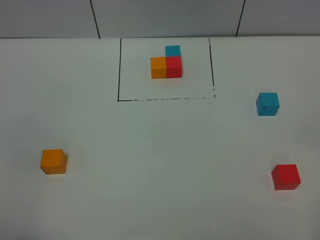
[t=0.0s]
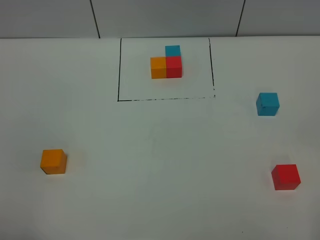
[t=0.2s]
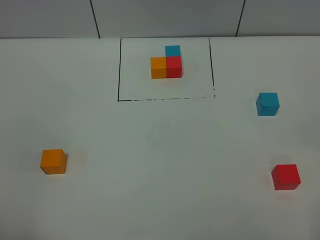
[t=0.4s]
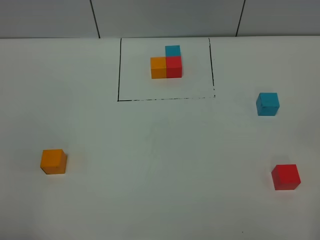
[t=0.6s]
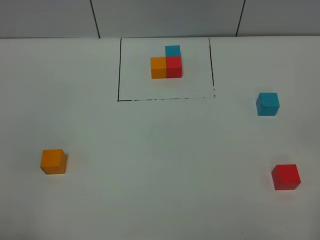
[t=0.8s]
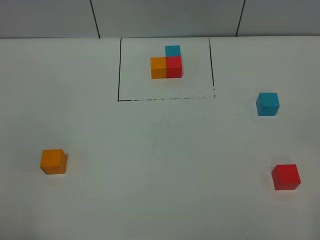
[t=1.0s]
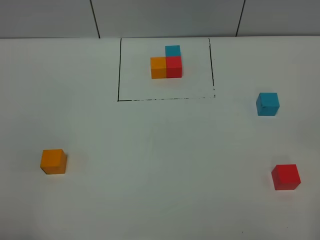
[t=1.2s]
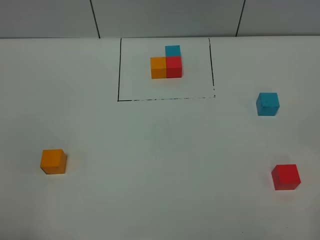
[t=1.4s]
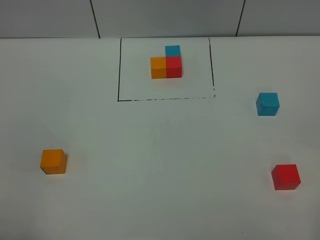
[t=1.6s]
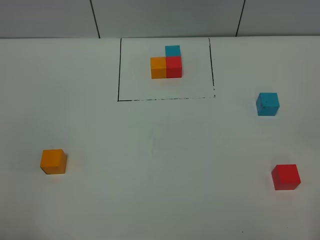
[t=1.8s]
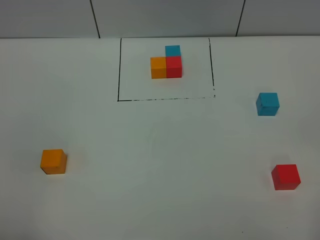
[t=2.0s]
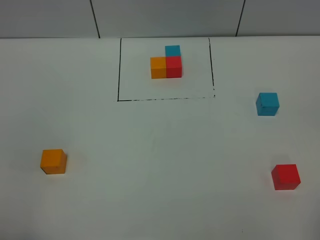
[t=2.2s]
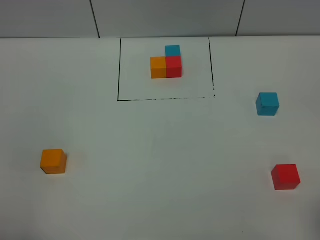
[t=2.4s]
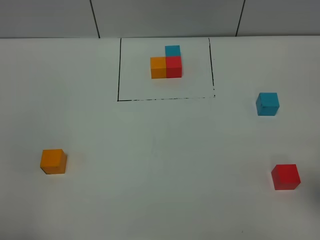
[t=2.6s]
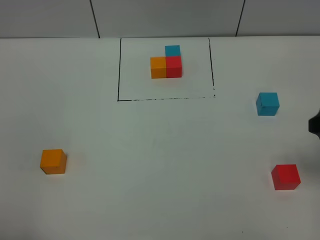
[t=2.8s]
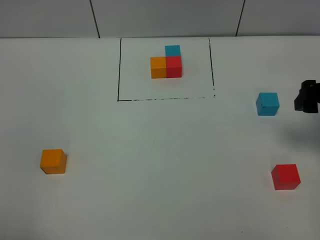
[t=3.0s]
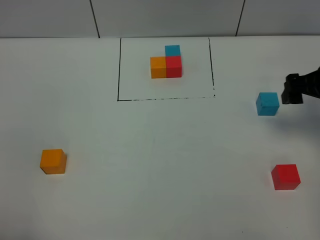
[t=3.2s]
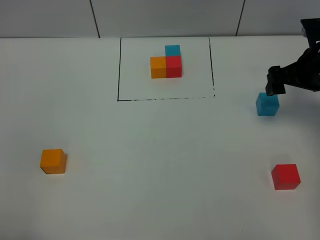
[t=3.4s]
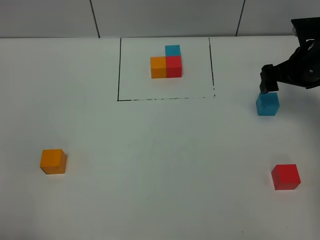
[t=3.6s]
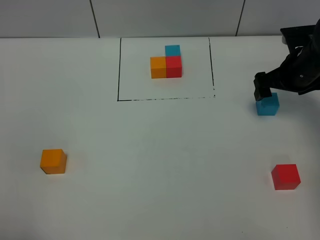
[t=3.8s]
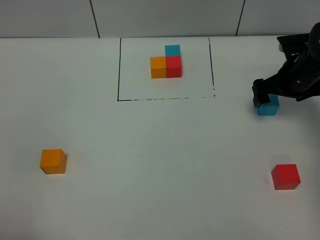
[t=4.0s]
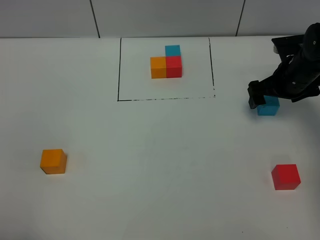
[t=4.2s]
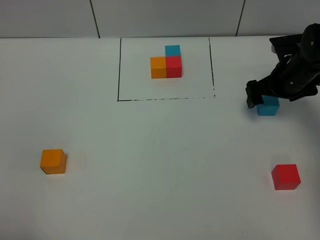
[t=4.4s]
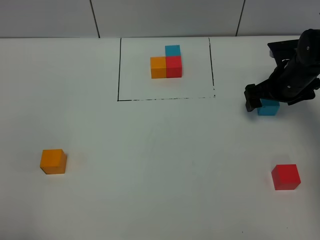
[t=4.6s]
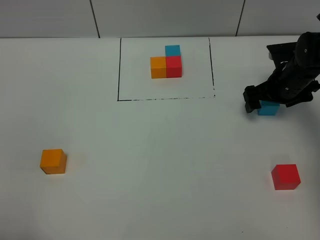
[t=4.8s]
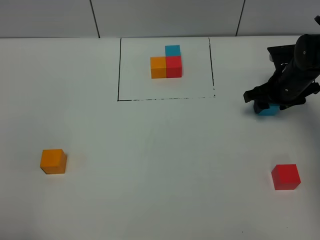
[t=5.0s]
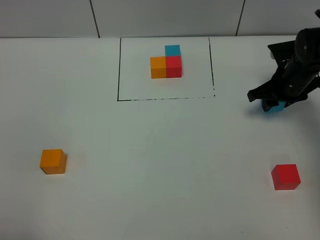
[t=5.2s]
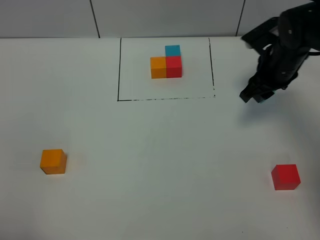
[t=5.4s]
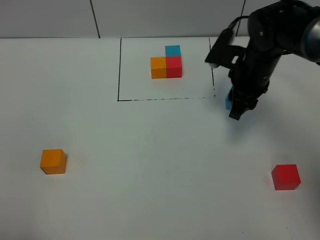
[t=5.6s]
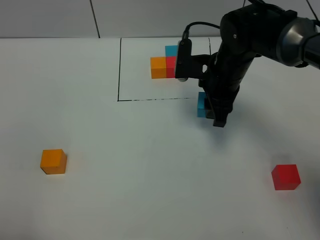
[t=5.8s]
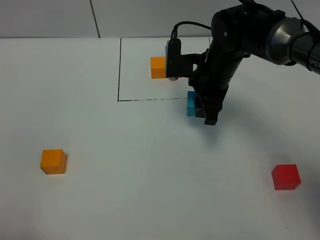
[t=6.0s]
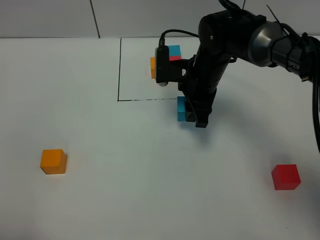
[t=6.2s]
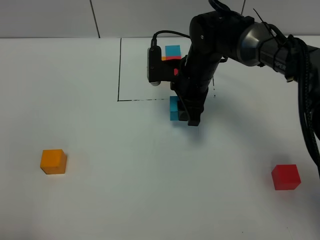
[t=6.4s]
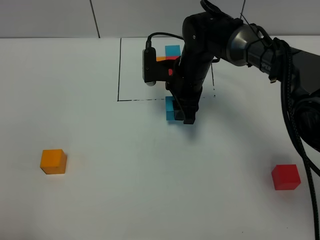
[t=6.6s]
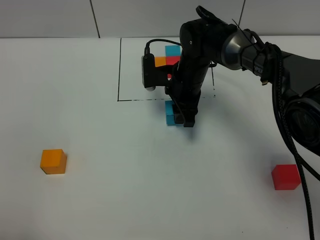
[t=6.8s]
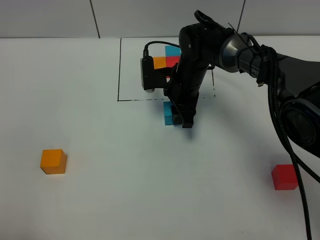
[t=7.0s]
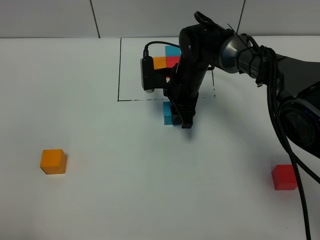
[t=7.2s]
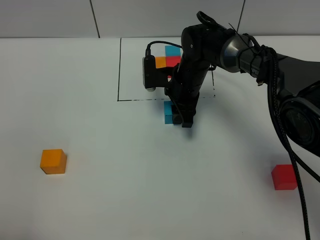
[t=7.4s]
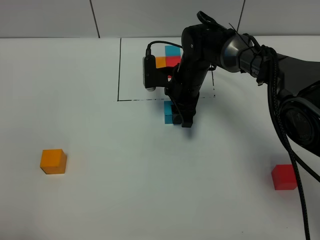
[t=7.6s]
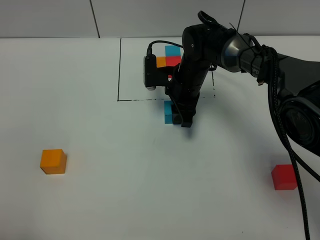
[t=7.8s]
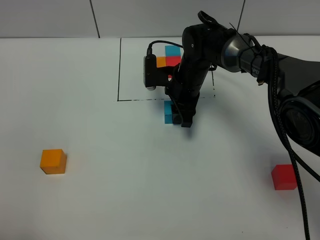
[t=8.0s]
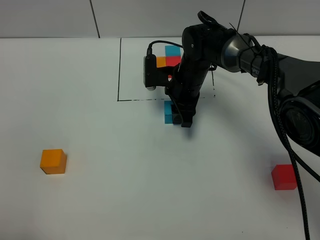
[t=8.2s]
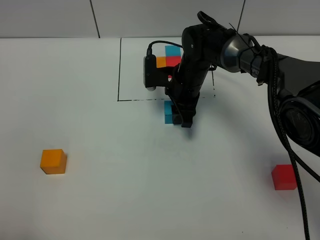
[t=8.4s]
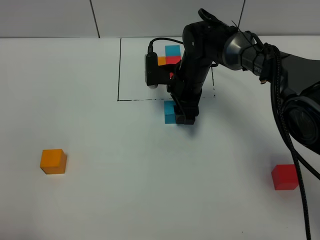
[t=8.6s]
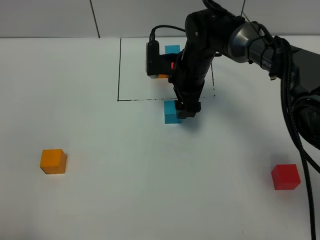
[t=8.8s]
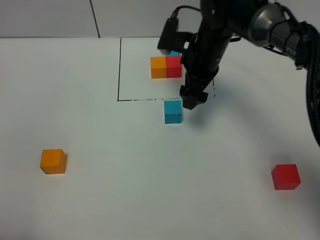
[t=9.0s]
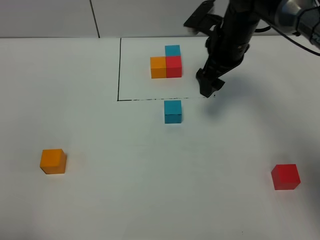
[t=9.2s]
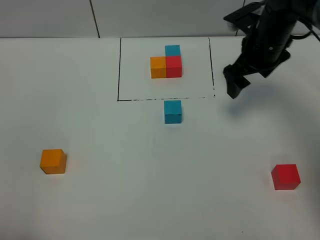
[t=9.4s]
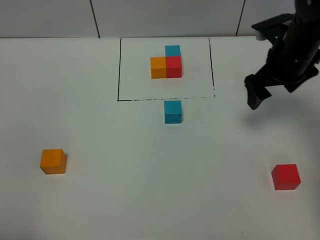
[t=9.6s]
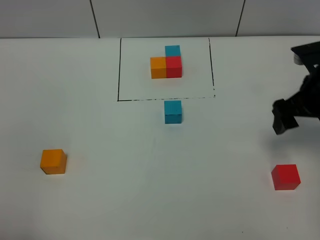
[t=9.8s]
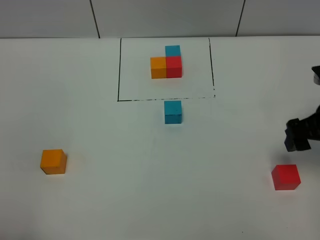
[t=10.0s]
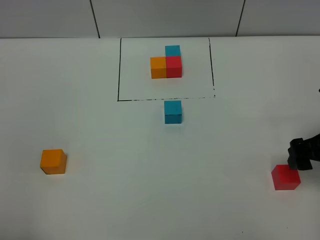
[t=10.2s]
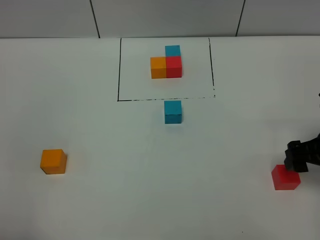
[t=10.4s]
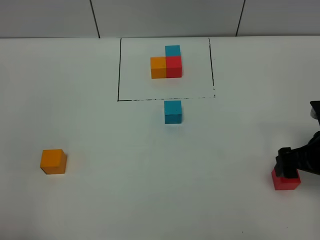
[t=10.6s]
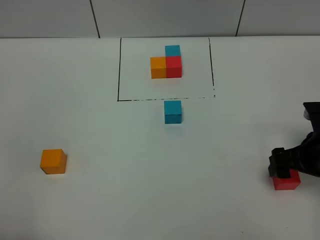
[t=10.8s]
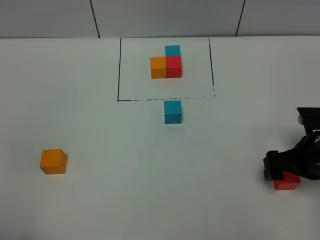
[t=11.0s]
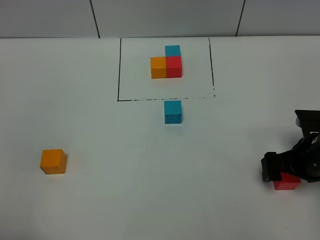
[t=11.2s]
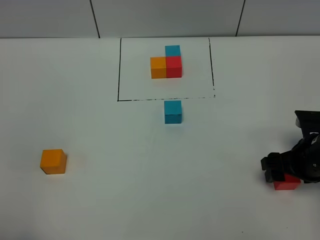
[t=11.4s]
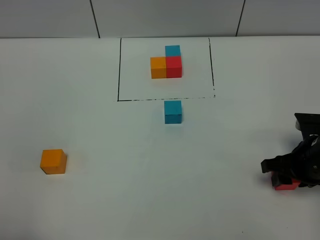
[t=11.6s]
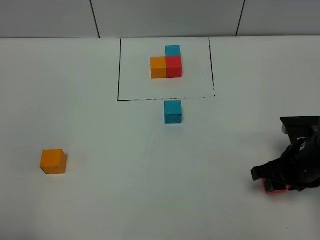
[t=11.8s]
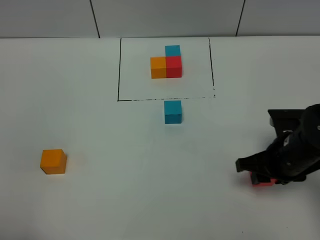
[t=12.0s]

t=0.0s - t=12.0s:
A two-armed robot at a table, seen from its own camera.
Task of the whole recording: According to the building block template in front, assemble the scattered blocks together.
Step, t=0.0s - t=8.4s: Put the blue build block in the center of the table.
t=0.0s - t=1.6s: Neither gripper changes place.
t=1.6s - t=3.0s: The right gripper moves forward, some 30 cm.
t=3.0s - t=4.4s: The right gripper shifts approximately 15 cm forward and downward.
t=4.4s - t=6.0s: The right gripper moves to the left, roughly 15 cm, and closes up.
t=6.0s - t=7.6s: The right gripper moves downward, roughly 5 cm.
t=7.6s - t=9.0s: The right gripper heads upward, covering roughly 10 cm, and opens.
t=9.0s - t=10.4s: The right gripper moves backward and to the right, roughly 25 cm.
t=10.4s - t=12.0s: The right gripper moves to the left, approximately 10 cm, and closes up.

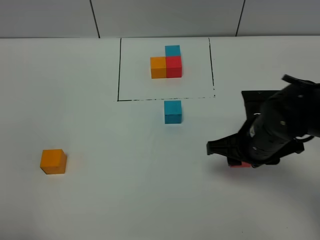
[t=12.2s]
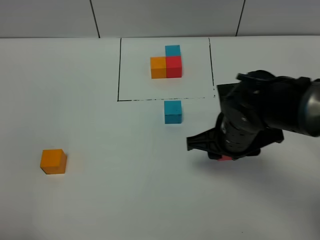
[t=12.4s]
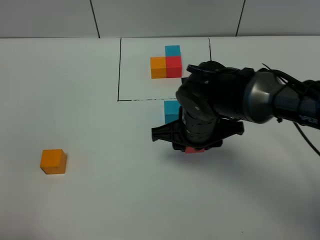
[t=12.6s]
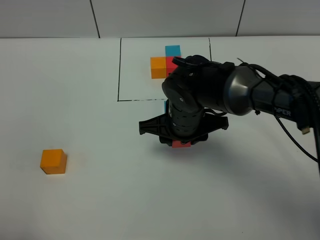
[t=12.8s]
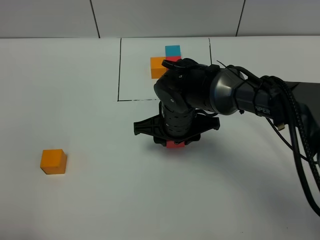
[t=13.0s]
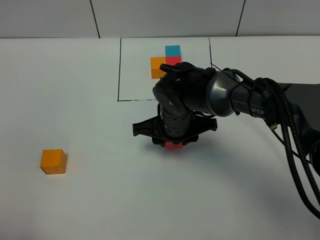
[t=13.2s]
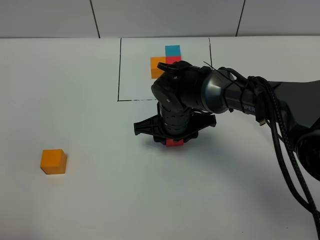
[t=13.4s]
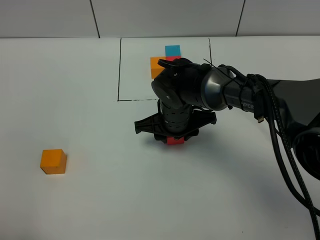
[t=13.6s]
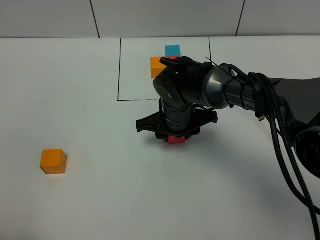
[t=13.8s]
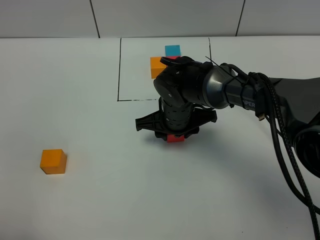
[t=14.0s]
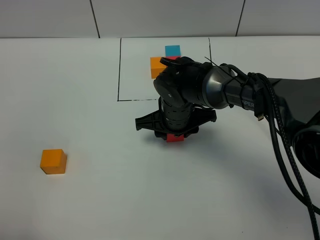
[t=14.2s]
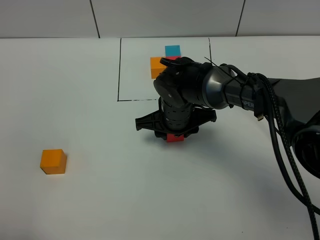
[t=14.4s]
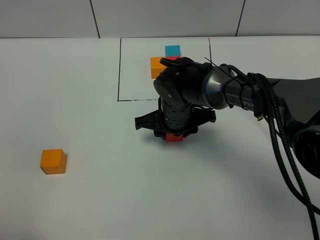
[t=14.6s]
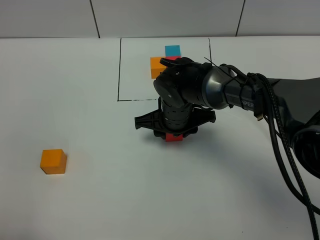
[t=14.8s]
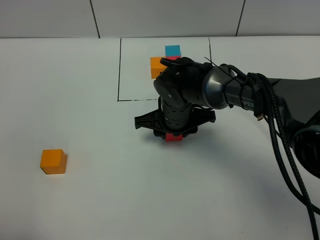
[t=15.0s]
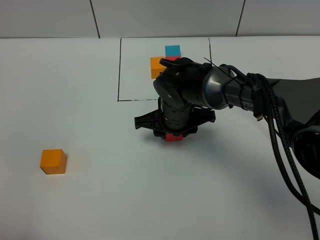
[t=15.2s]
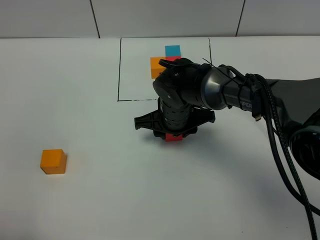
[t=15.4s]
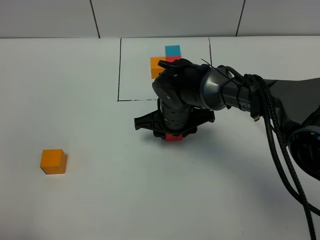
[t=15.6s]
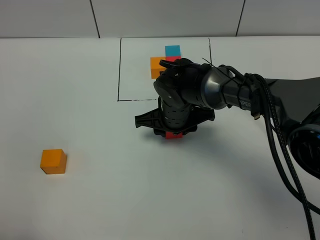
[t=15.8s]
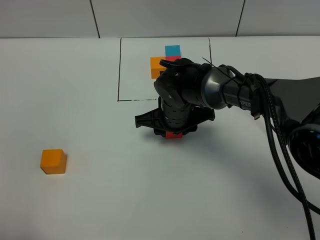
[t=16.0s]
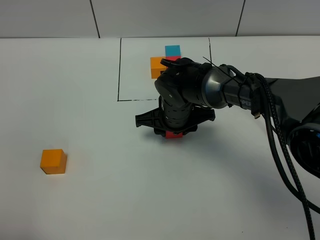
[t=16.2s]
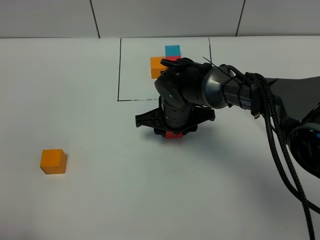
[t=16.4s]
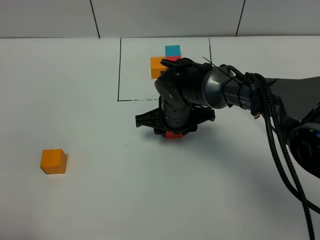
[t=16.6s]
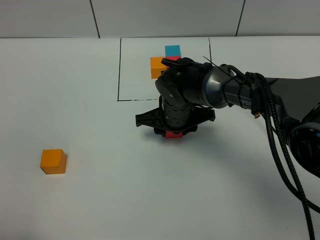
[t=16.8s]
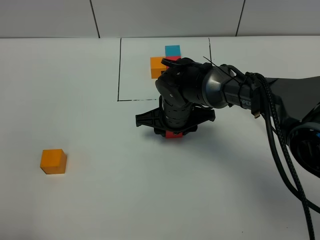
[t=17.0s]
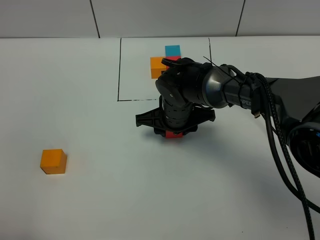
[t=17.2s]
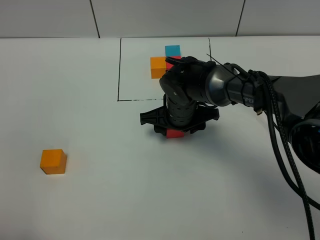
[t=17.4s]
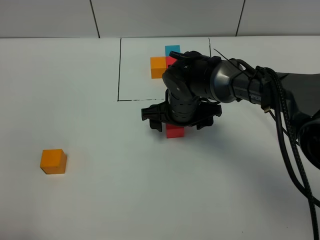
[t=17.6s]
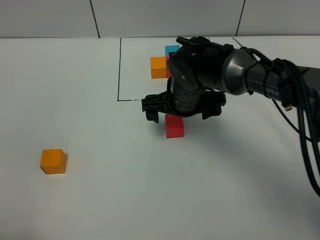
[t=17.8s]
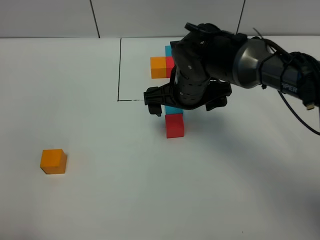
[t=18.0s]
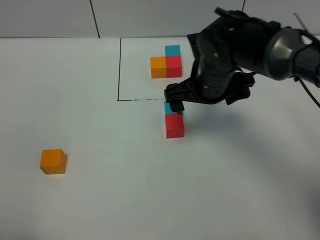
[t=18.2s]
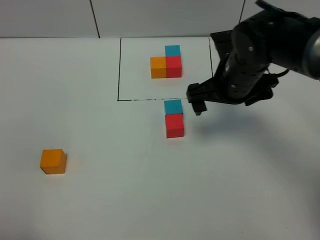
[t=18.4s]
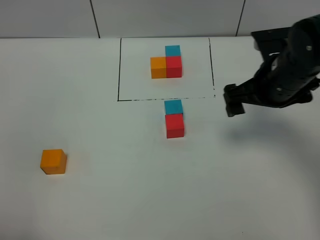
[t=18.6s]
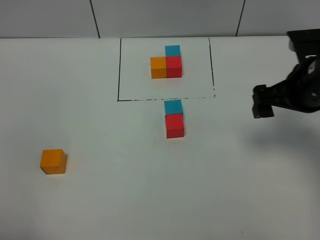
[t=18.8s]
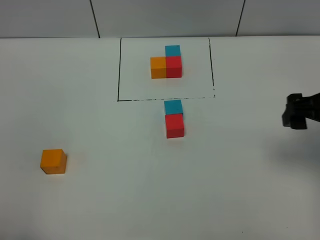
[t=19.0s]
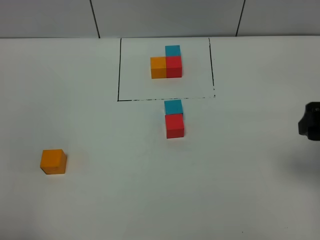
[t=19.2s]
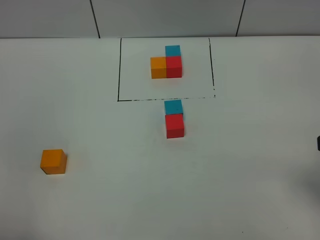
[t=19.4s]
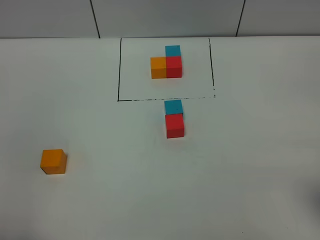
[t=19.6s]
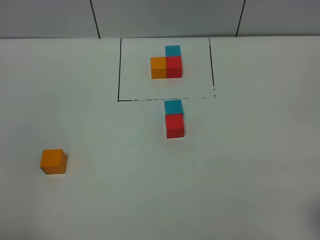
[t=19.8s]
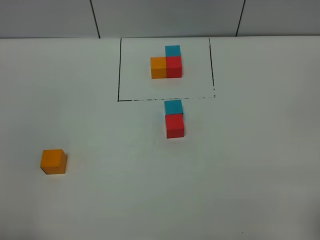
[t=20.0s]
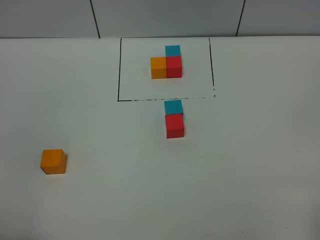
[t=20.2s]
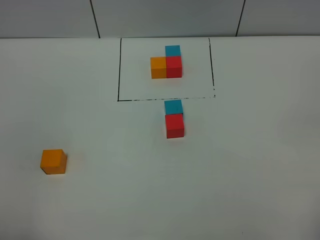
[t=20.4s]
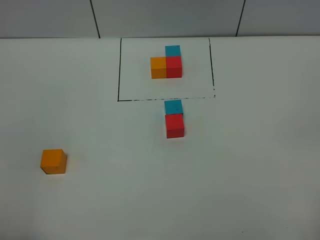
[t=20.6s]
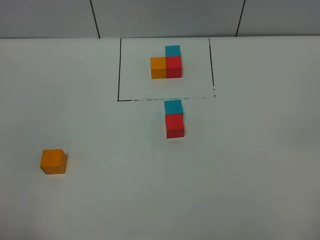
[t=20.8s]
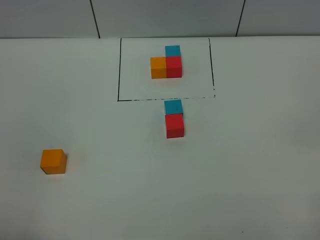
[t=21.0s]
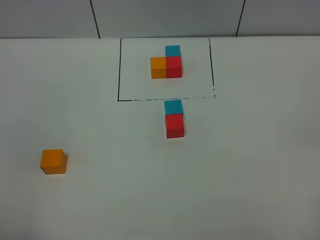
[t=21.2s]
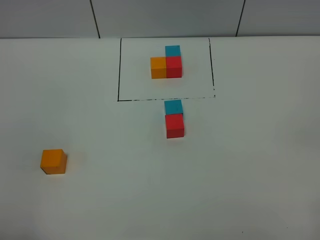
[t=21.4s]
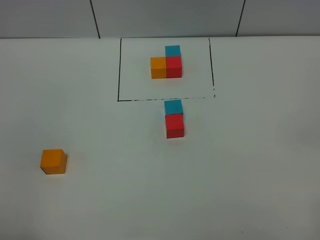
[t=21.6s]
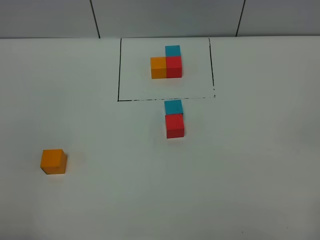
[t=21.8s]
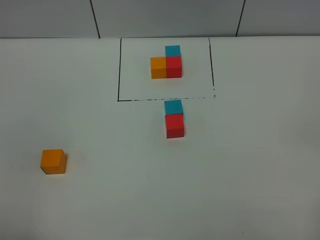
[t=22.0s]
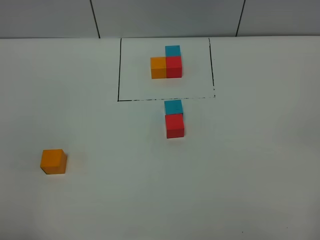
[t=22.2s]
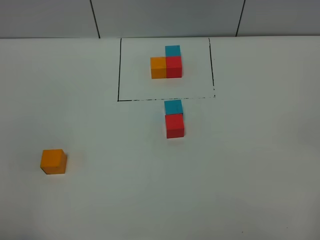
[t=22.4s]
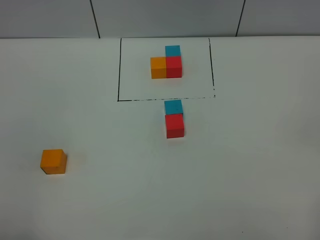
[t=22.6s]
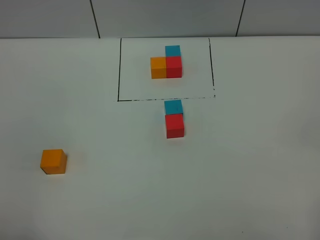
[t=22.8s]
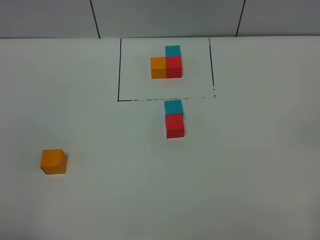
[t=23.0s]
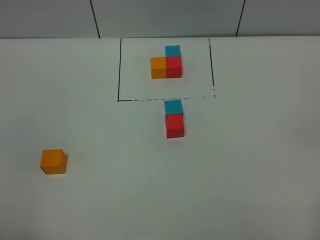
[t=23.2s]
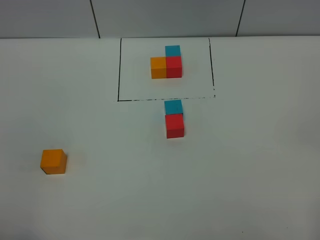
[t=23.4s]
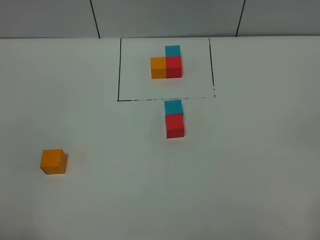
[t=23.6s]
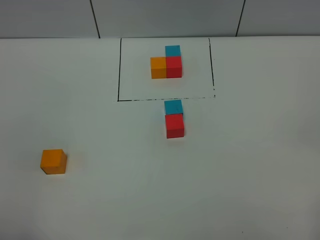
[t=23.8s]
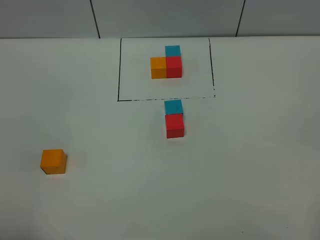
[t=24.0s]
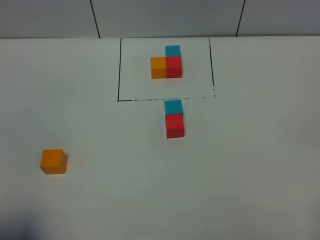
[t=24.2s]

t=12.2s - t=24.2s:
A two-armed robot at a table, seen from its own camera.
Task of the whole recording: According to the building block template in front, assemble the scattered blocks together.
Step, t=12.2s - t=17.4s: Put the red build block on the behind of the blue build block.
t=12.2s - t=13.8s: The right gripper moves to the left and forward, some 15 cm.
t=13.8s - t=15.2s: Both grippers stay put.
t=15.2s - t=16.6s: Both grippers stay about where they are.
t=16.6s - t=18.2s: The right gripper moves upward and to the right, some 10 cm, and opens.
t=18.2s - t=19.8s: The right gripper is displaced backward and to the right by some 35 cm.
t=22.6s - t=24.2s: The left gripper goes approximately 5 cm forward.
